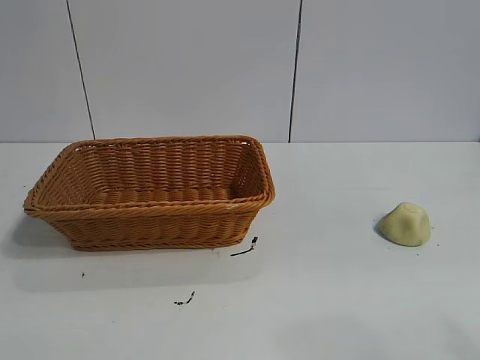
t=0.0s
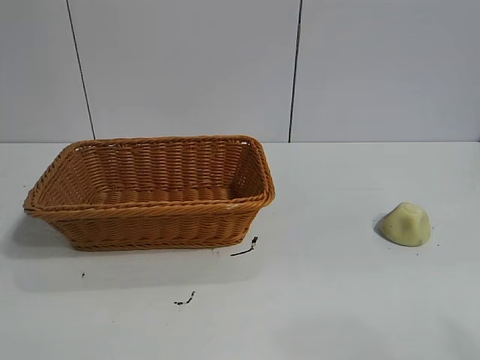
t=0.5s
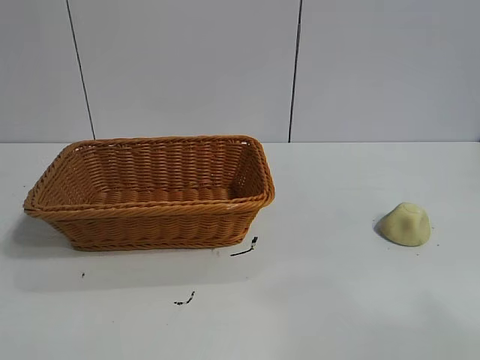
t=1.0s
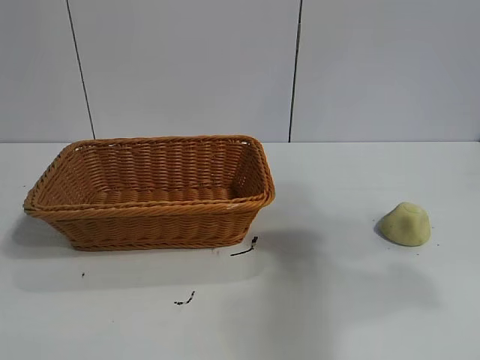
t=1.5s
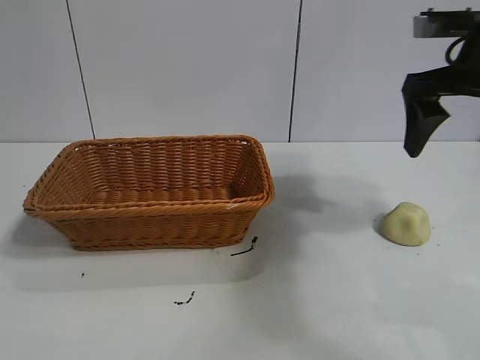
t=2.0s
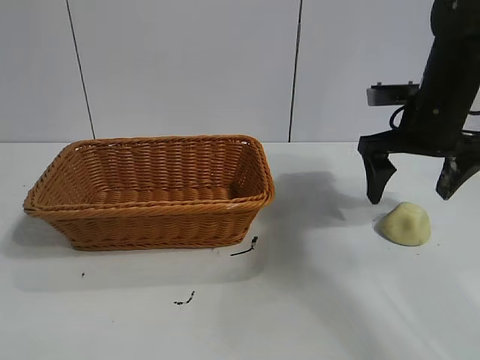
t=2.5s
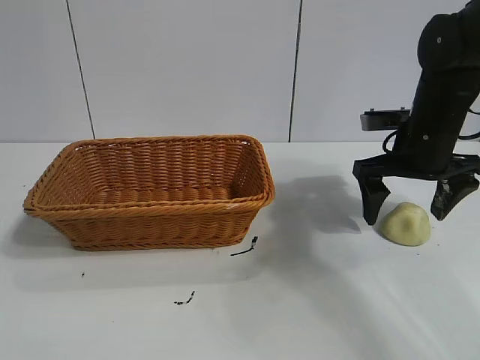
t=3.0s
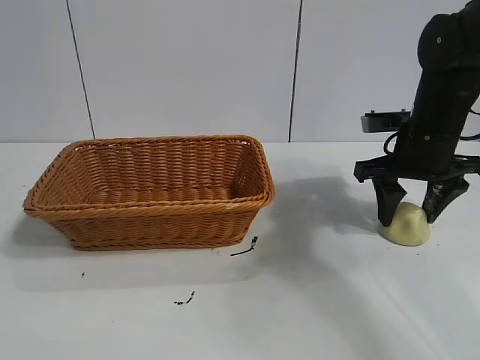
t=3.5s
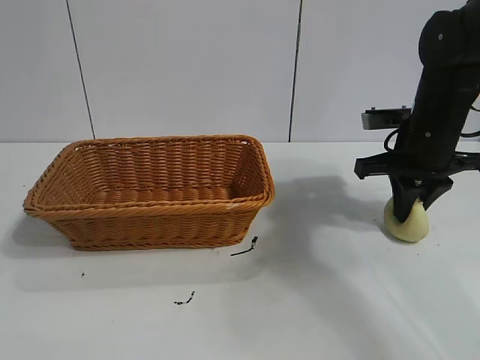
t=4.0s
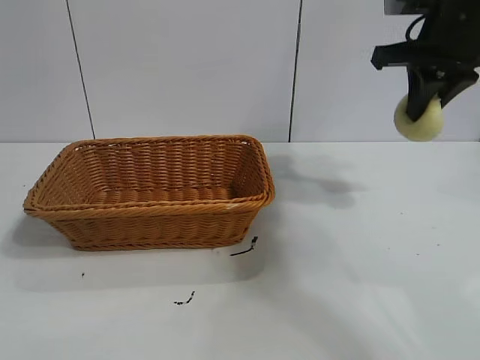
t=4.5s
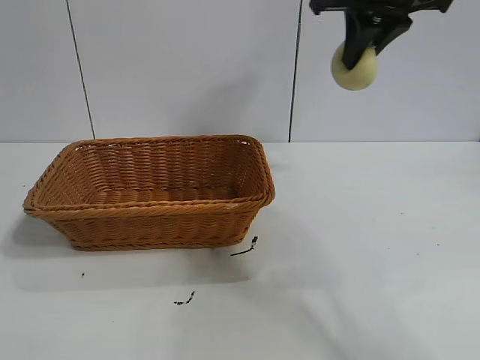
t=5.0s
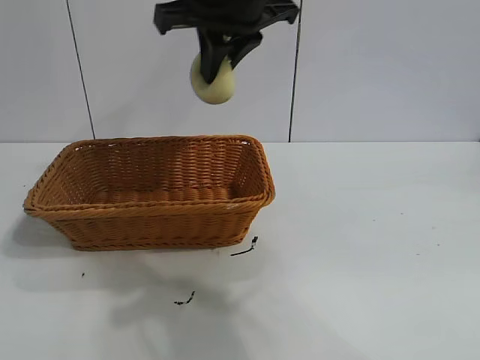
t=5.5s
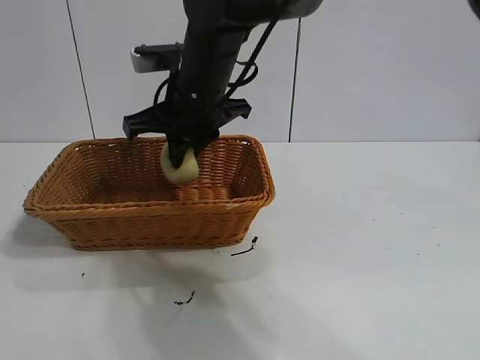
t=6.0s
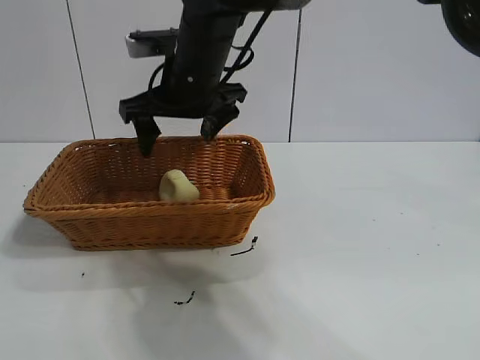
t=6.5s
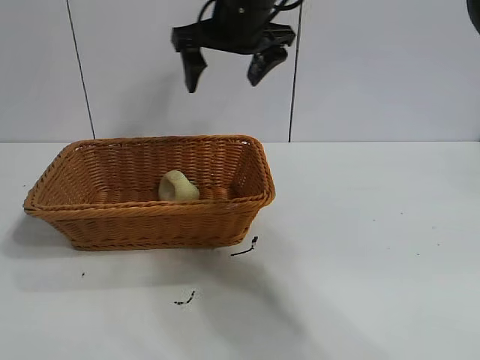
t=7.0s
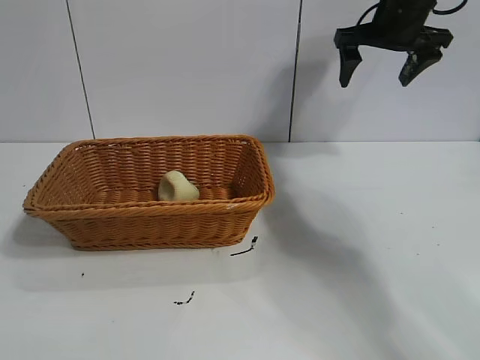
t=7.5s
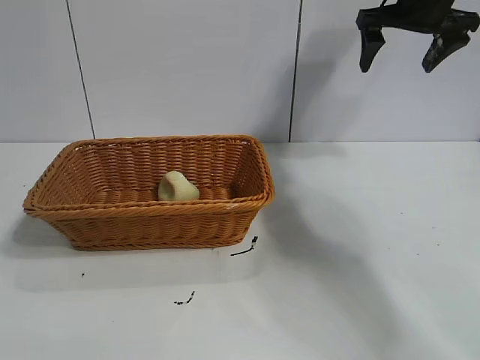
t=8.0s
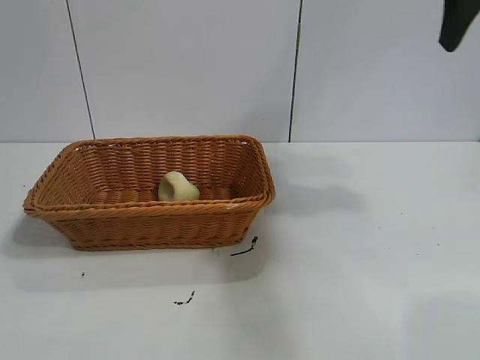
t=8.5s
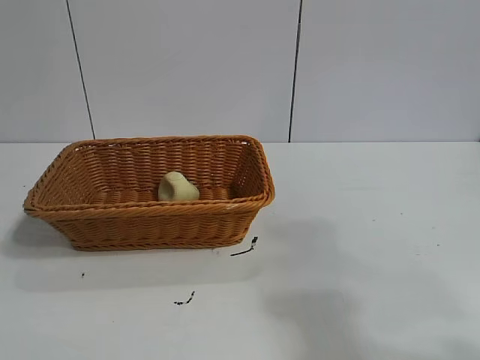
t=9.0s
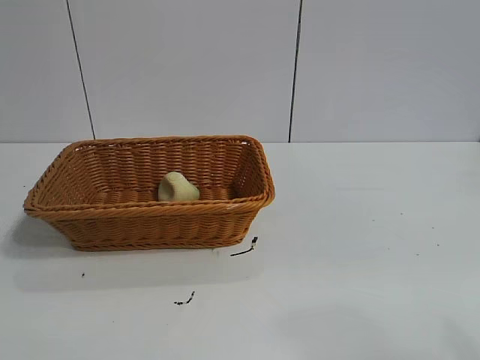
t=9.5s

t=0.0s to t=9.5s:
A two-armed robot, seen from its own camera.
Task of the whole recording: pick up the egg yolk pastry and put it into the basket.
Step, t=1.0s to t=3.5s: Grasp egg yolk pastry with right gripper.
Step, t=4.0s to t=6.0s: Place the egg yolk pastry in the basket with right gripper.

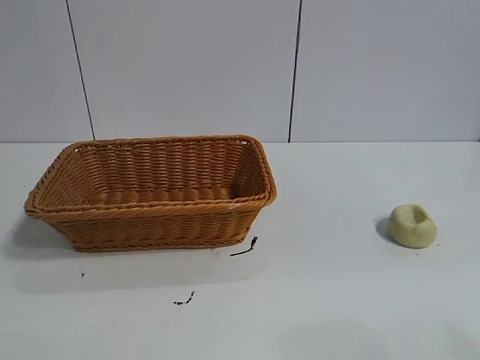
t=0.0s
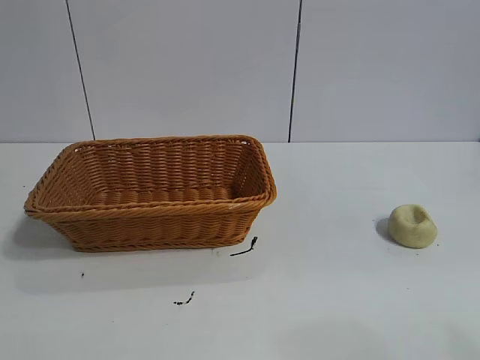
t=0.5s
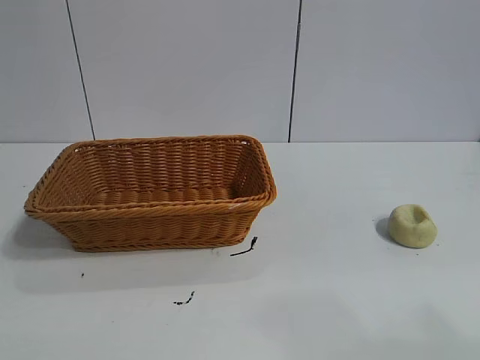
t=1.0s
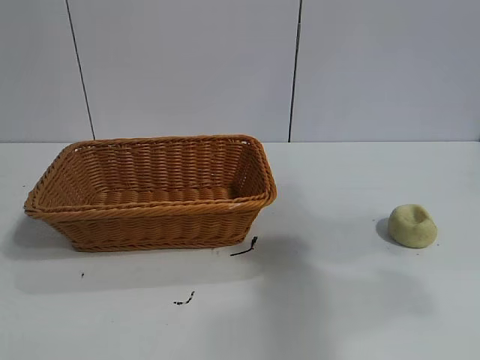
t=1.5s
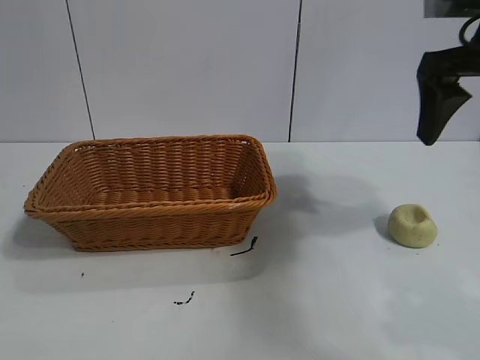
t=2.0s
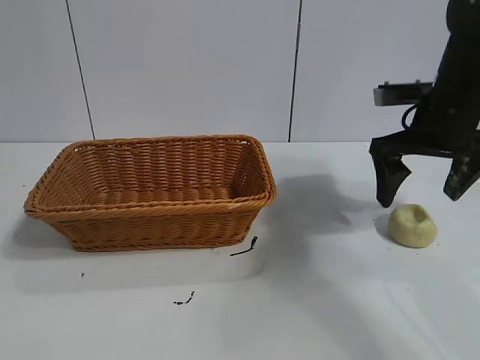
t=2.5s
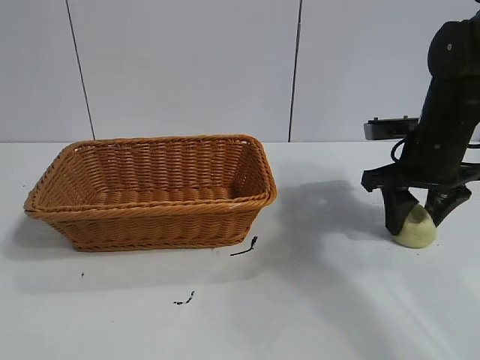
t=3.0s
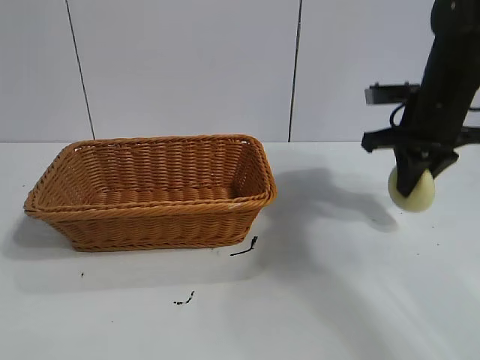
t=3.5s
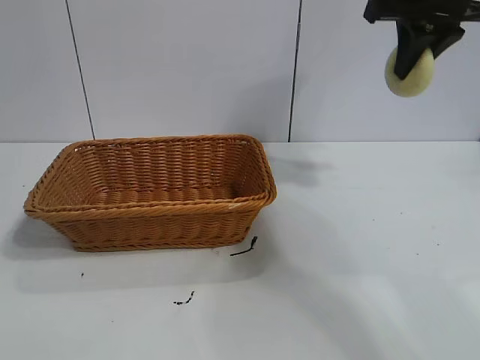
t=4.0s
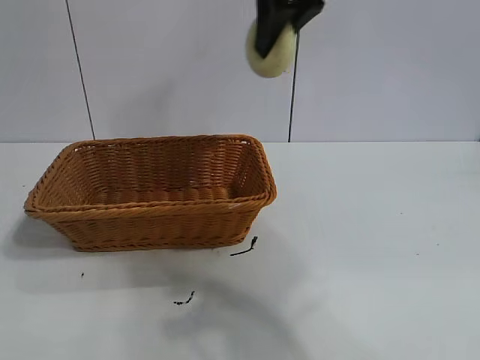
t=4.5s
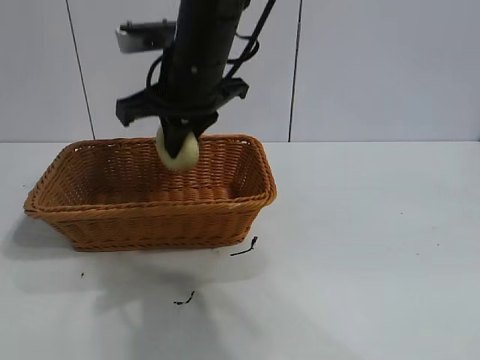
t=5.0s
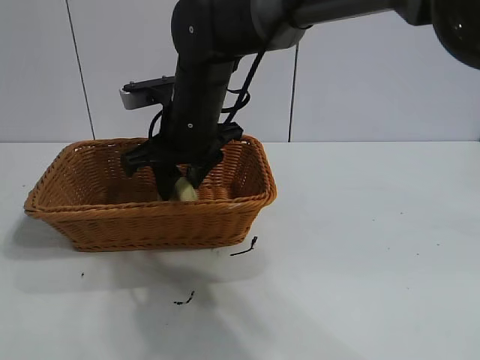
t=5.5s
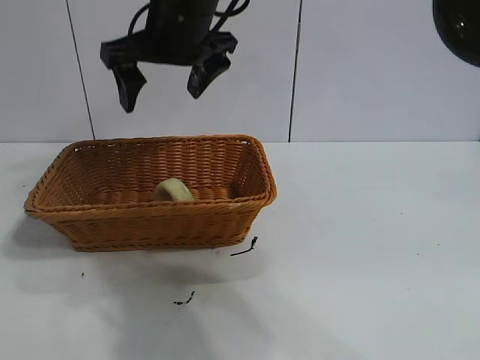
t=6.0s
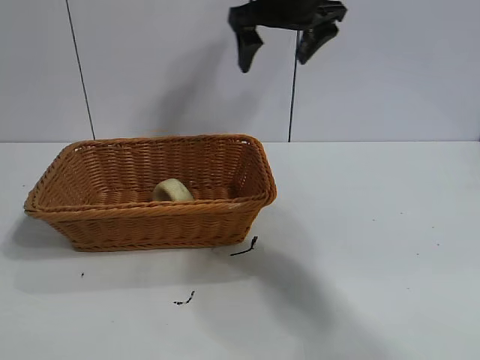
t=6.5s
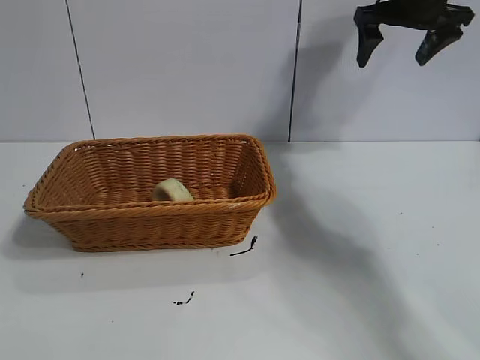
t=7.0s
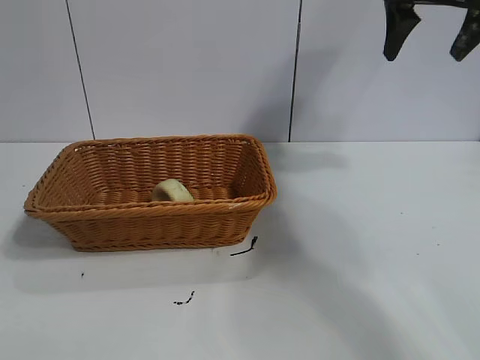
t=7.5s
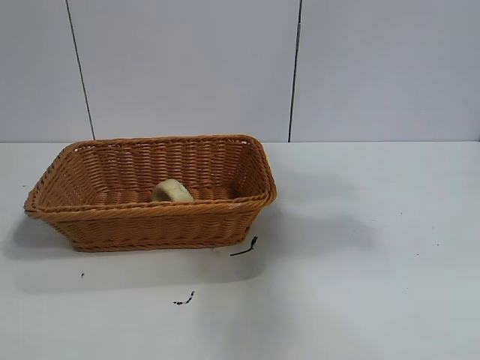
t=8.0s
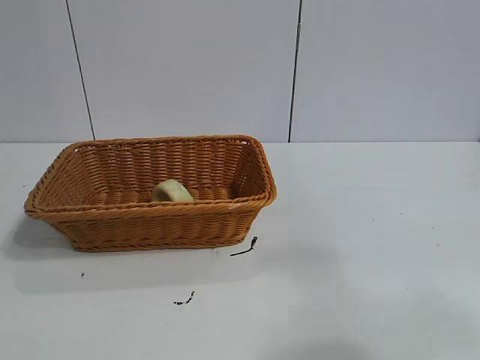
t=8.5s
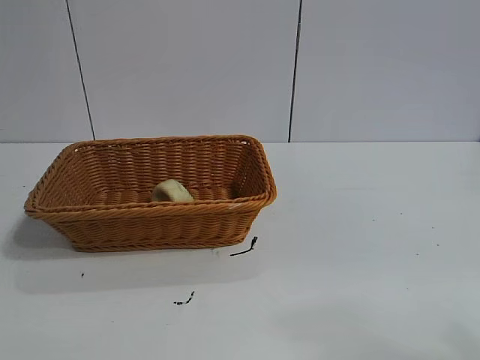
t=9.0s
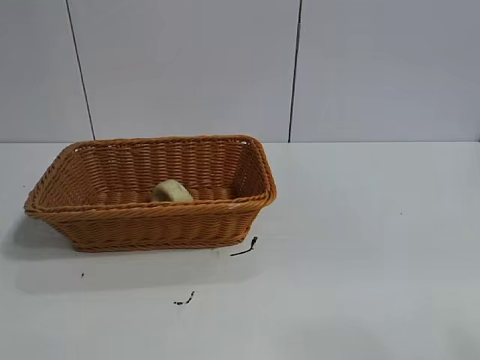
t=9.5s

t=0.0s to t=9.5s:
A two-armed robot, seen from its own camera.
Task of the whole recording: pick up the egg yolk pastry and put it into the basket.
Step, t=1.0s to t=3.0s: Grasp egg yolk pastry with right gripper.
Step, t=3.5s to t=5.5s: Place the egg yolk pastry in the basket with right gripper.
